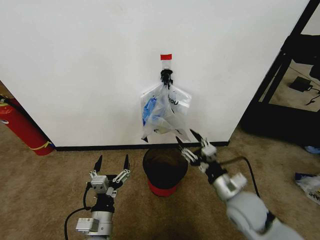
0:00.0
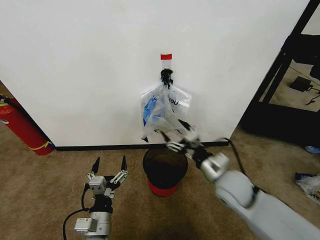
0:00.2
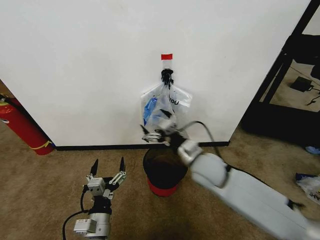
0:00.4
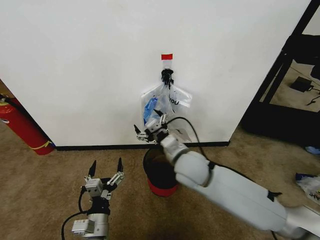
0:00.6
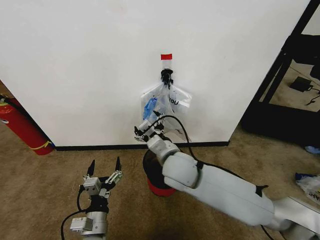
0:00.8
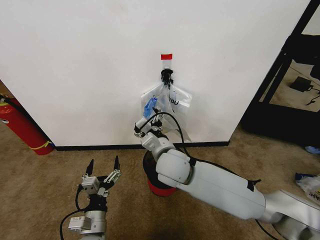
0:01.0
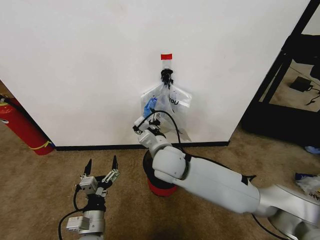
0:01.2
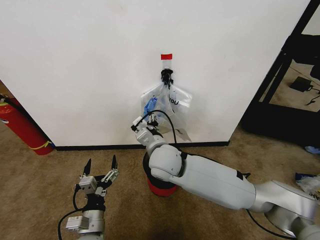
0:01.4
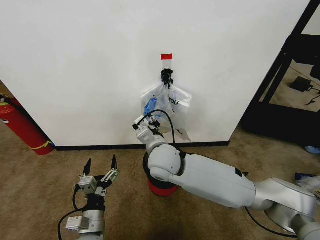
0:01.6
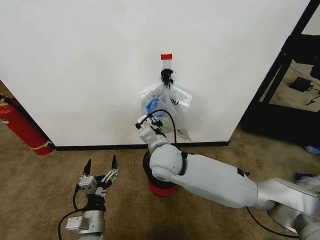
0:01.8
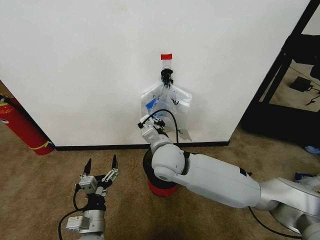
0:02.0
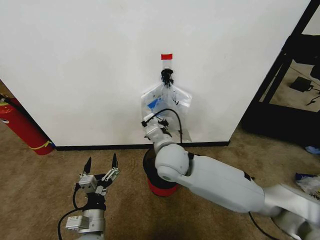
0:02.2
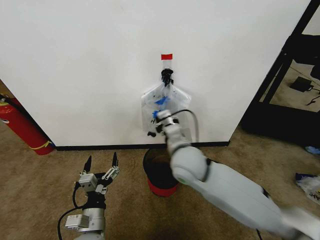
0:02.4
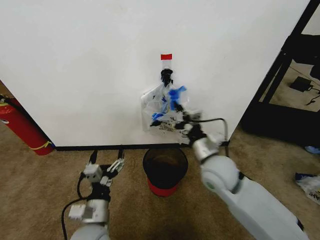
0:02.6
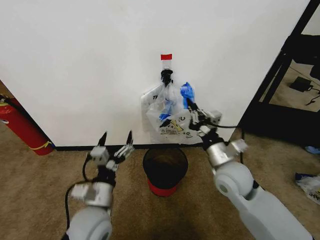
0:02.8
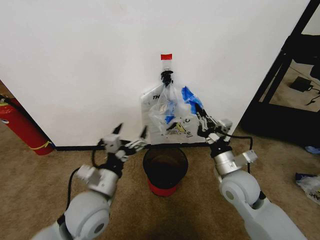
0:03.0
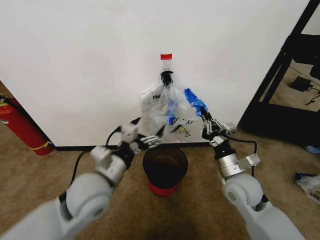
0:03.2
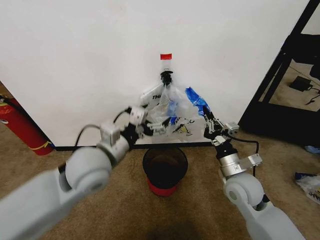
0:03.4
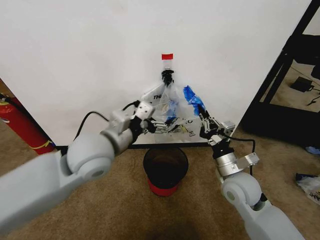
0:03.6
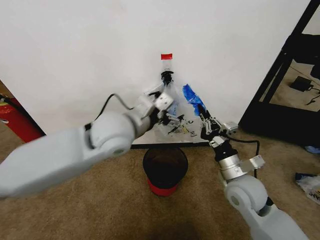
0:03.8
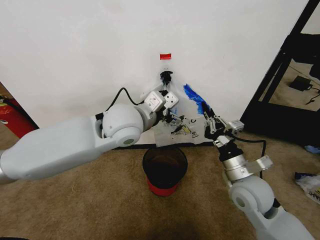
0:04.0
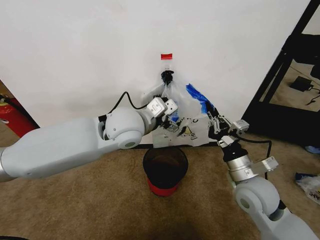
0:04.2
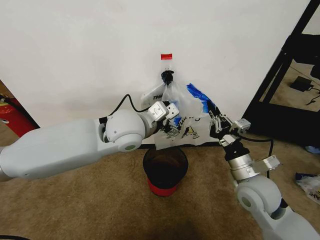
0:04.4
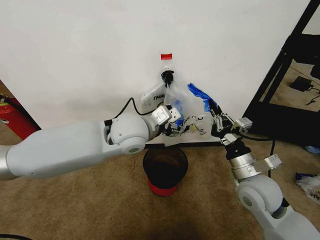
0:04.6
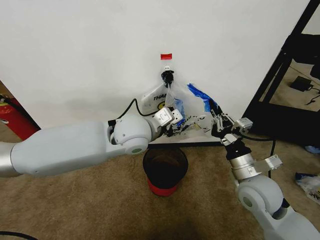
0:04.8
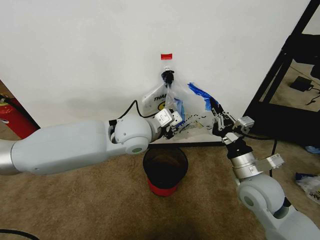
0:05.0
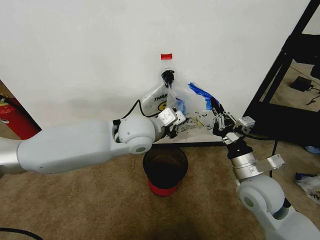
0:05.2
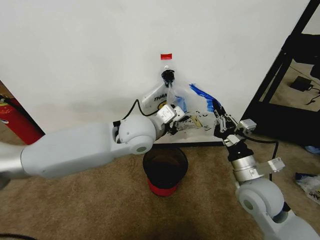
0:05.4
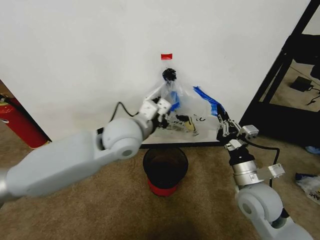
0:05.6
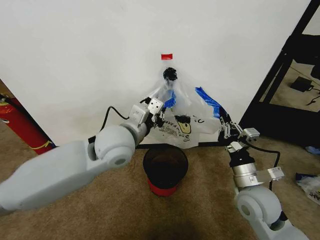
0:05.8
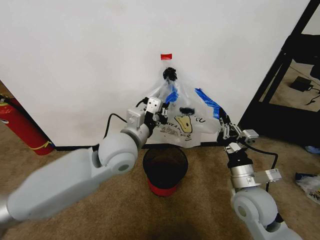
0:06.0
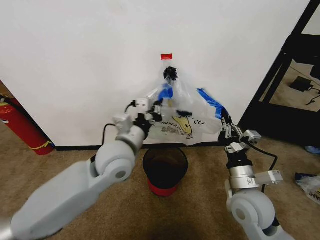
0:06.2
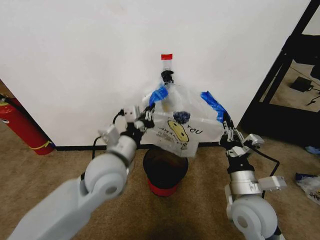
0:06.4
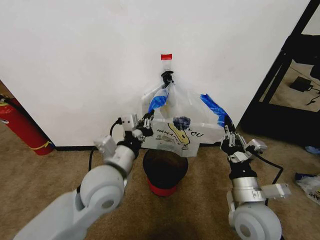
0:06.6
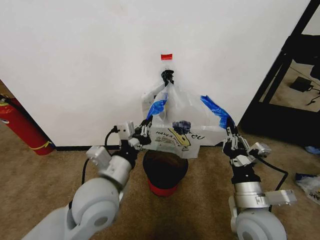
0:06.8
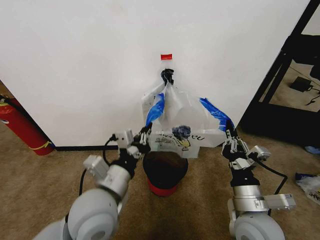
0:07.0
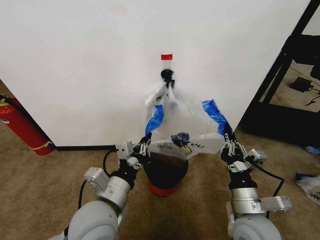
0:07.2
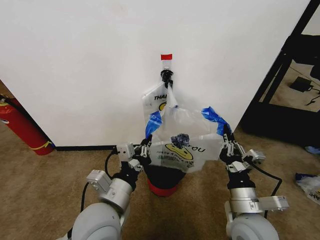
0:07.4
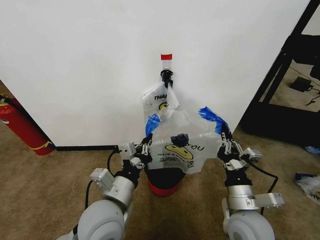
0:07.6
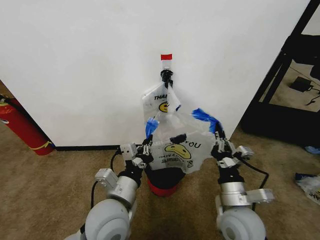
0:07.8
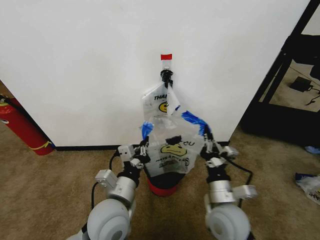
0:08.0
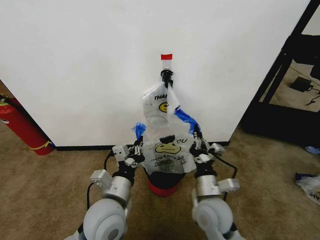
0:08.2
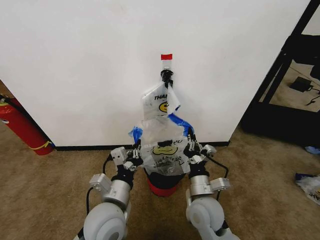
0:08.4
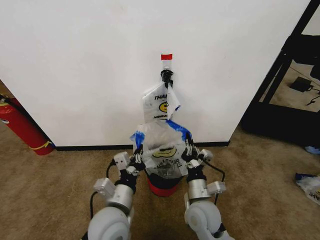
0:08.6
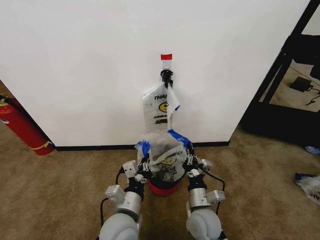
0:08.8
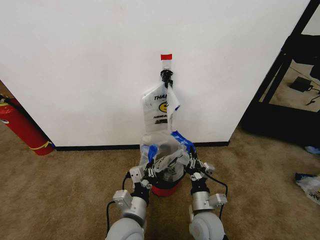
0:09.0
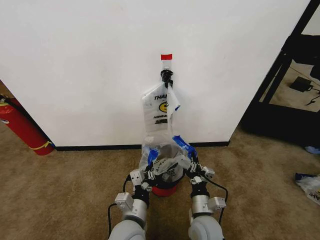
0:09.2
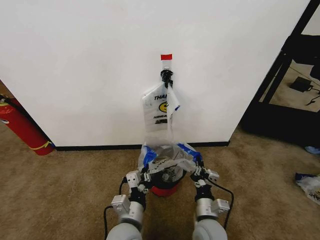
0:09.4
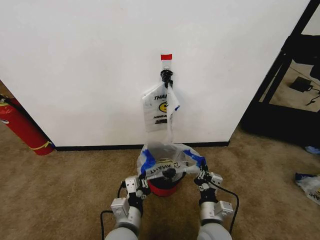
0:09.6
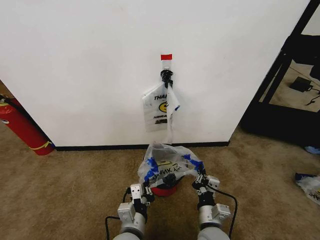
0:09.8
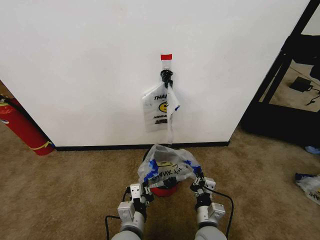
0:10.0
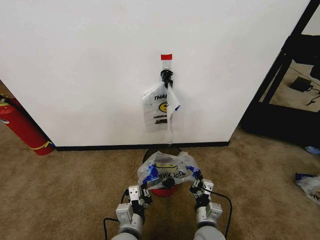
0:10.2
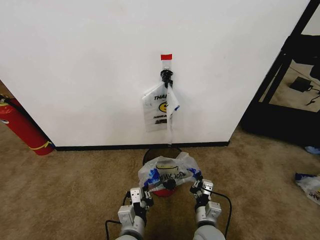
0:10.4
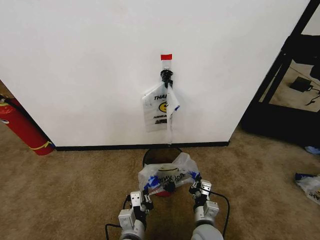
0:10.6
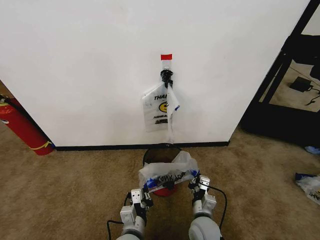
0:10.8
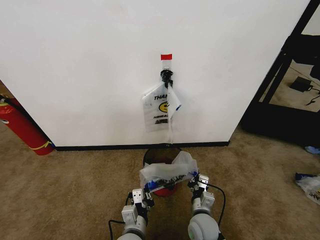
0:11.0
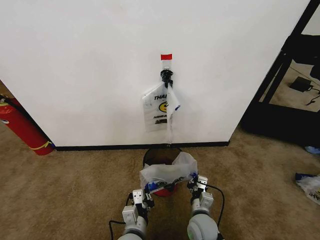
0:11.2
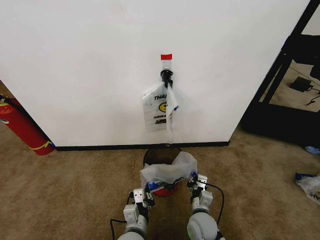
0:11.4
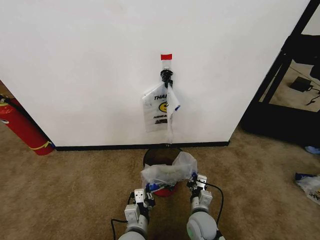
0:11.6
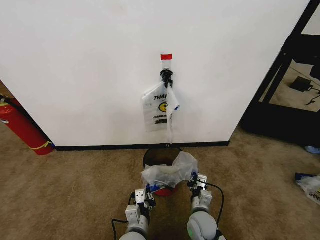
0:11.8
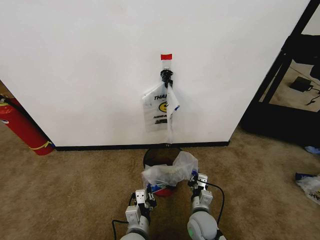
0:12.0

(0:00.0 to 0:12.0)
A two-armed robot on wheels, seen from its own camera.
Task of the whole recording: Pick up the garbage bag from the wall and place it over the trash bin.
0:00.0 - 0:01.6: The right gripper goes some 25 cm to the left and forward, and opens and closes again.
0:01.6 - 0:03.0: The left gripper moves upward and forward, about 15 cm, while the right gripper shifts approximately 20 cm to the right, and closes up.
0:03.0 - 0:04.4: The left gripper is displaced forward, upward and to the right by some 20 cm.
0:04.4 - 0:06.0: The left gripper changes place by some 5 cm, and closes up.
0:06.0 - 0:07.6: The left gripper heads backward and downward, covering about 15 cm; the right gripper is displaced backward by about 5 cm.
0:07.6 - 0:09.0: The left gripper shifts roughly 10 cm downward. Meanwhile the right gripper is displaced downward and to the left by roughly 15 cm.
0:09.0 - 0:10.4: The left gripper ends up some 5 cm from where it was.
0:10.4 - 0:12.0: The right gripper shifts by some 5 cm.

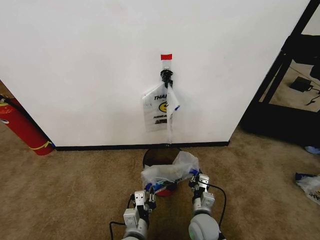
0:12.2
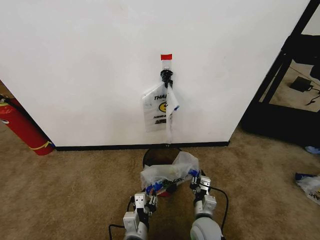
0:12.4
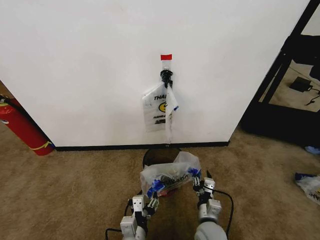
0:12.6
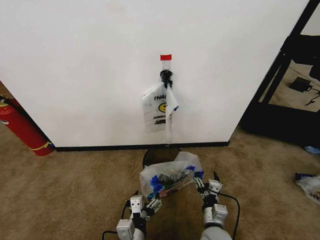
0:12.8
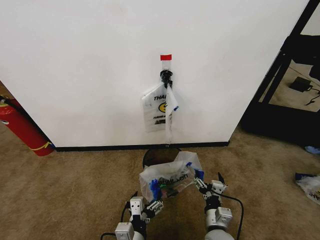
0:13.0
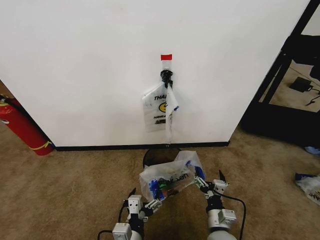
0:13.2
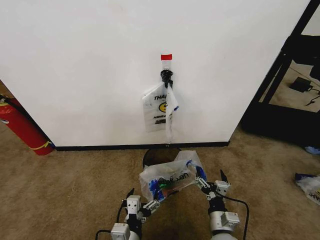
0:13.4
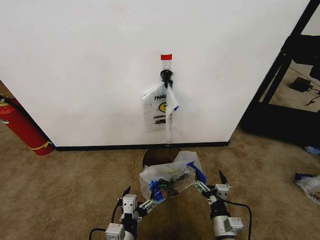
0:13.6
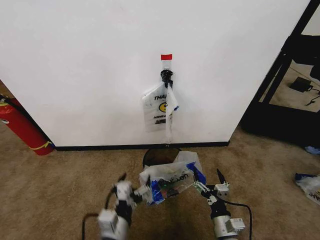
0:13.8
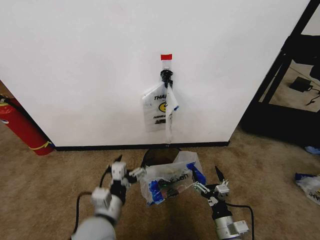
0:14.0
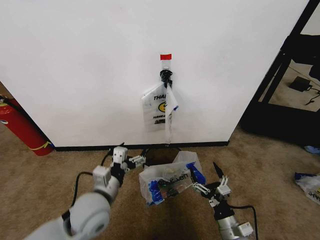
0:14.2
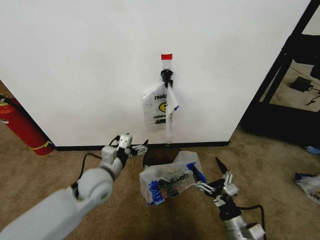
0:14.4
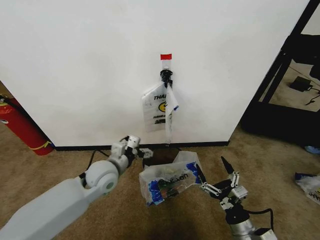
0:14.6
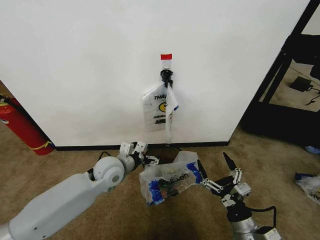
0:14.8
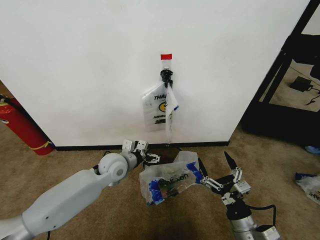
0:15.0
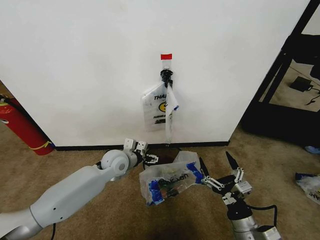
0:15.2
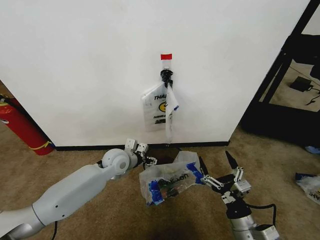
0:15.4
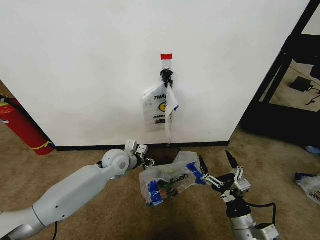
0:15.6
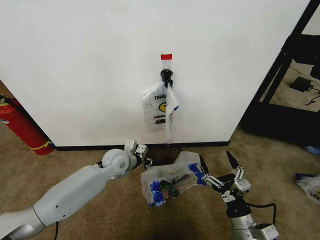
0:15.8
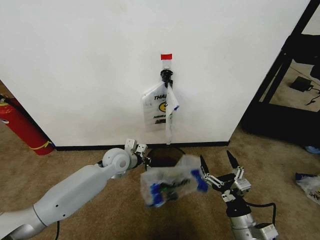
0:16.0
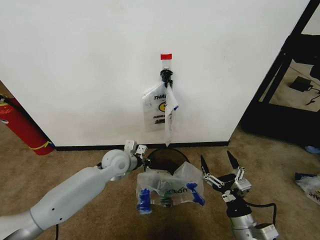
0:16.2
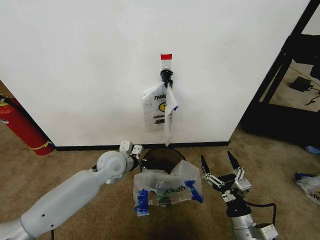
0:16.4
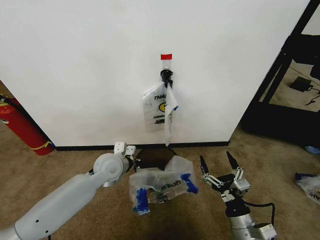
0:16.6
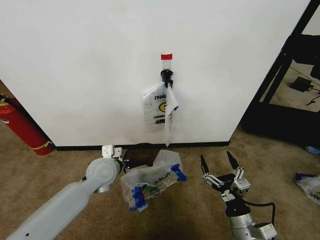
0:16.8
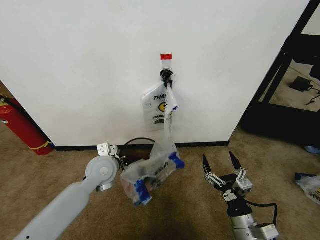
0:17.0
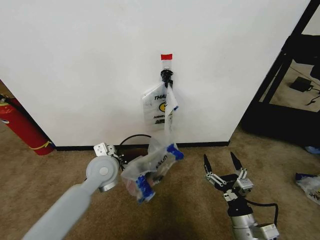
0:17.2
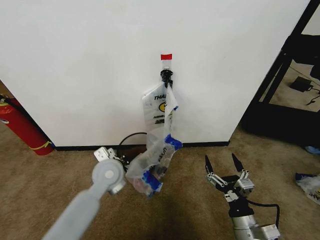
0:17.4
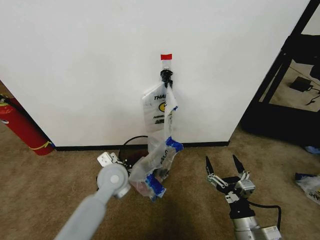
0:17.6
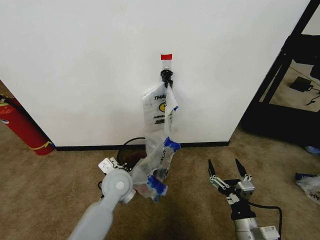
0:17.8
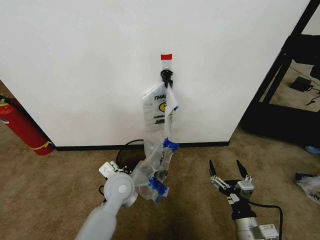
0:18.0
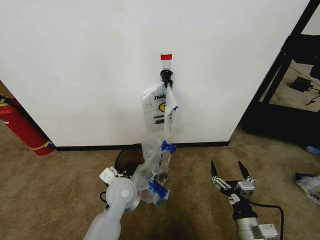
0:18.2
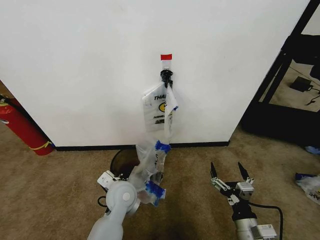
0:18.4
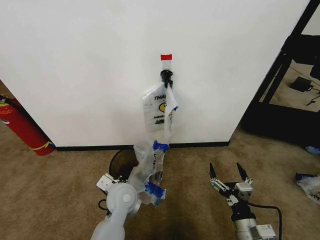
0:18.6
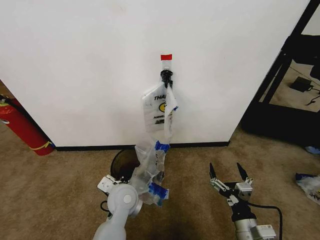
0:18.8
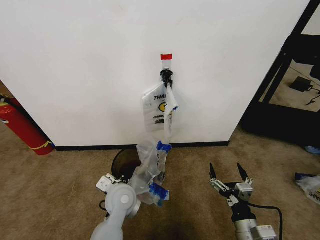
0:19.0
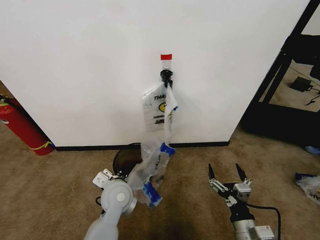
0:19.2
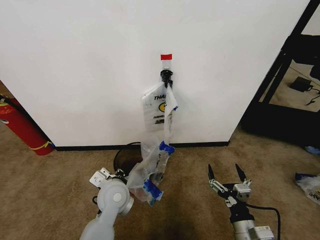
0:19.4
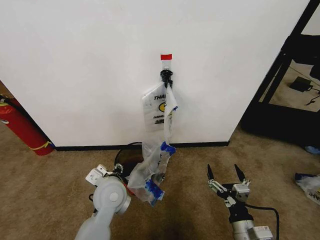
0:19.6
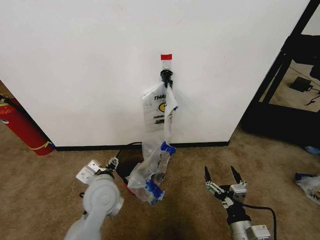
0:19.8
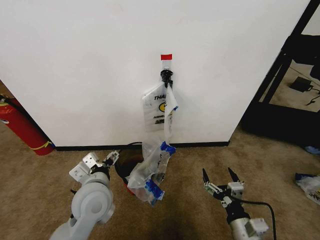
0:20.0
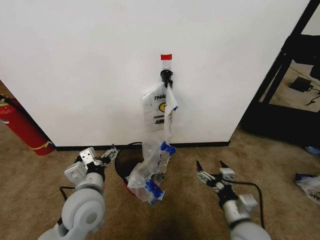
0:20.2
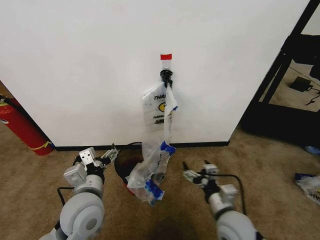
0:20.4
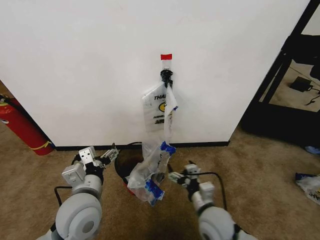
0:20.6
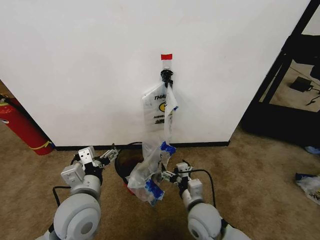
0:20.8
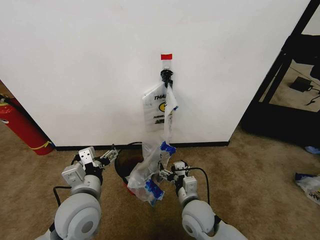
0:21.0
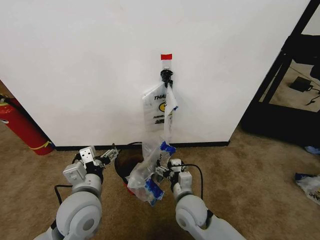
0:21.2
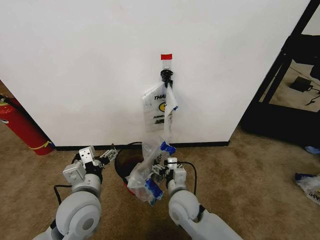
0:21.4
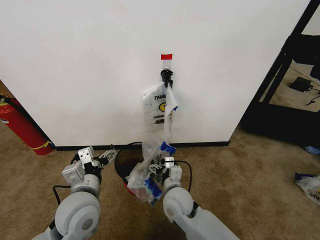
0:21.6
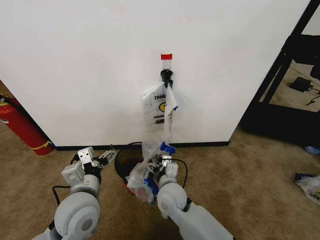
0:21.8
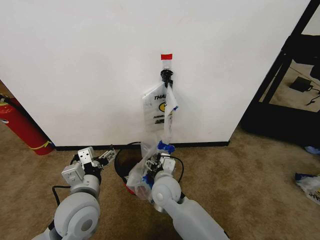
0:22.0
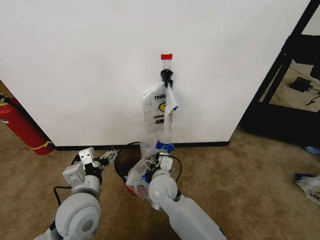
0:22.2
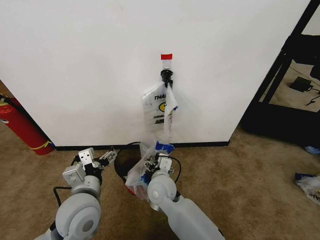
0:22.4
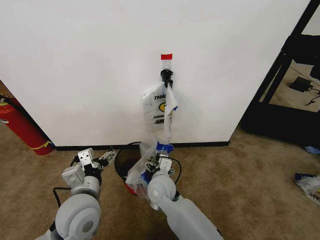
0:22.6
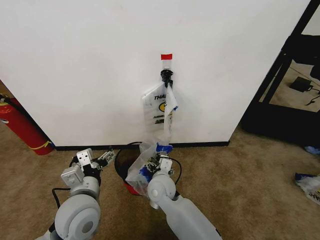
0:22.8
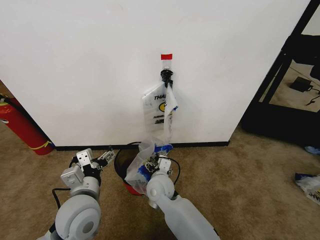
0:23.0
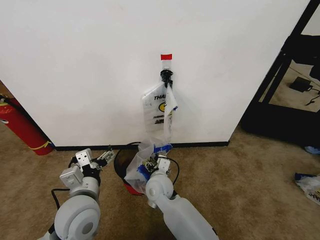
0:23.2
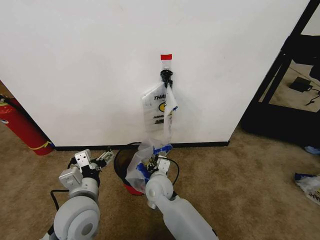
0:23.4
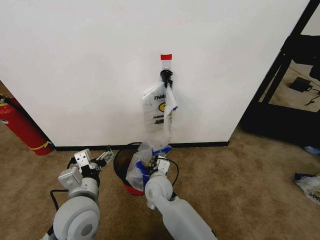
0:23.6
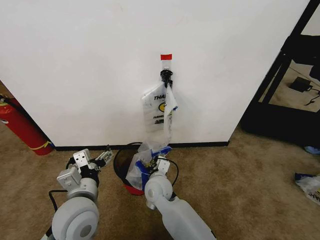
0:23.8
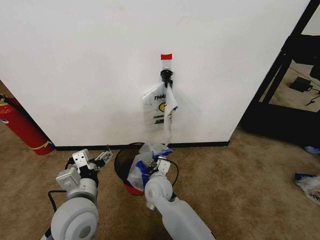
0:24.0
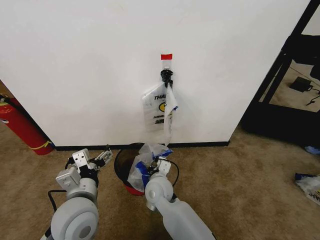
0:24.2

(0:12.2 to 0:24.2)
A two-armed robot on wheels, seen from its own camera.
Task of the whole recording: Pick up the garbage bag from the wall and place it over the trash bin.
0:12.2 - 0:13.8: The right gripper goes about 10 cm backward and to the right, and opens its fingers. Meanwhile the left gripper moves upward and to the left, about 10 cm, and opens.
0:13.8 - 0:15.2: The left gripper goes approximately 30 cm forward. The right gripper is displaced upward by about 5 cm.
0:15.2 - 0:16.6: The left gripper closes up.
0:16.6 - 0:18.2: The left gripper travels backward and to the right by approximately 10 cm.
0:18.2 - 0:19.8: The left gripper opens.
0:19.8 - 0:21.2: The left gripper goes about 10 cm backward and upward. Meanwhile the right gripper goes roughly 20 cm to the left and forward.
0:21.2 - 0:22.6: The right gripper shifts about 10 cm to the left and forward.
0:22.6 - 0:24.2: The right gripper closes.
